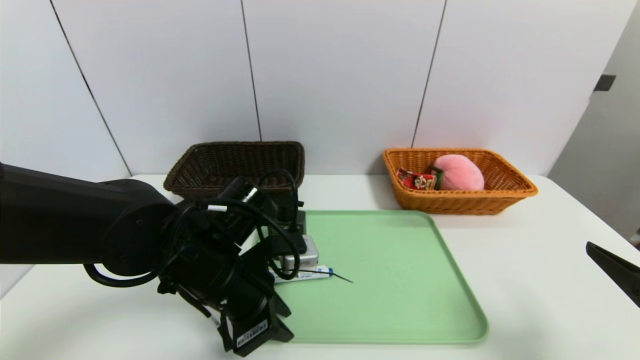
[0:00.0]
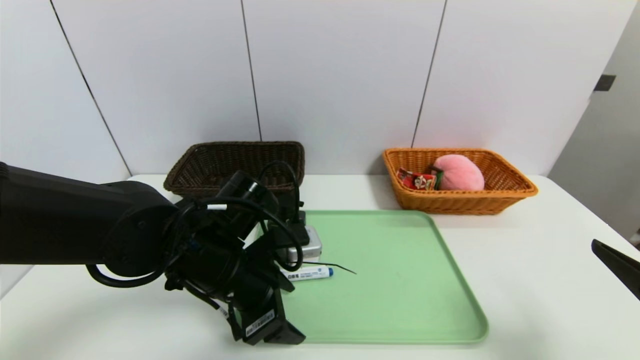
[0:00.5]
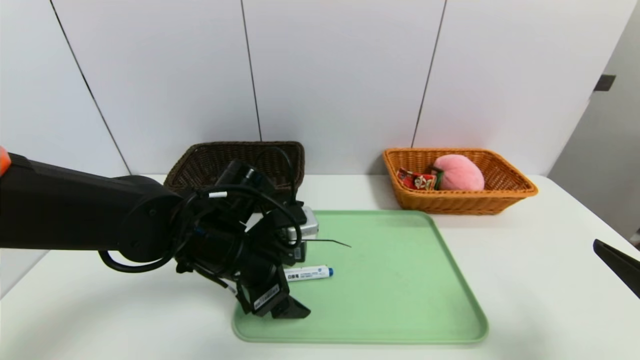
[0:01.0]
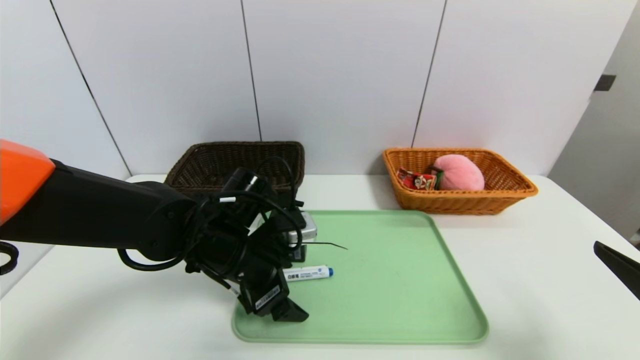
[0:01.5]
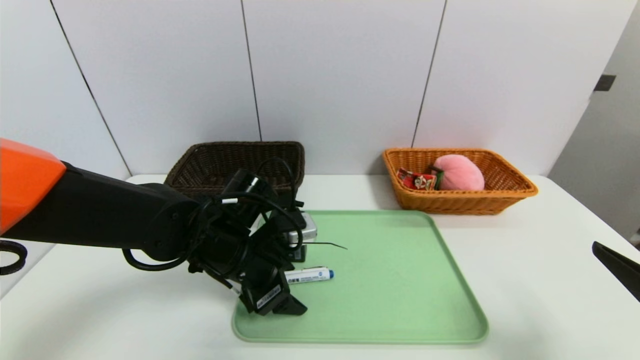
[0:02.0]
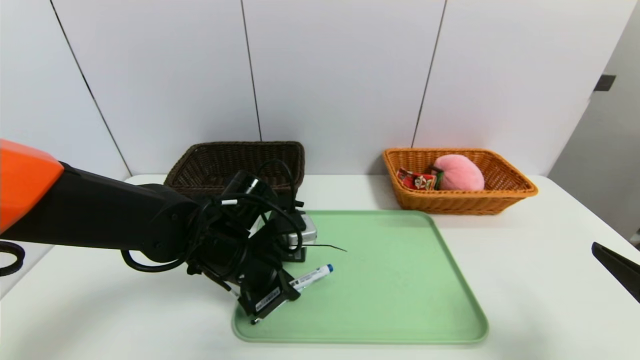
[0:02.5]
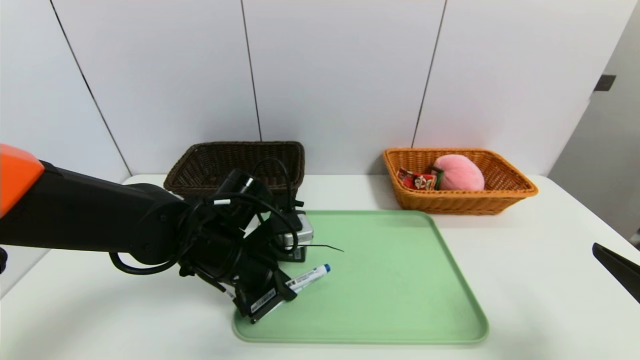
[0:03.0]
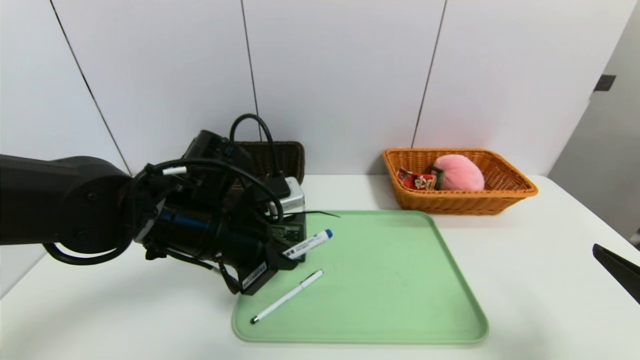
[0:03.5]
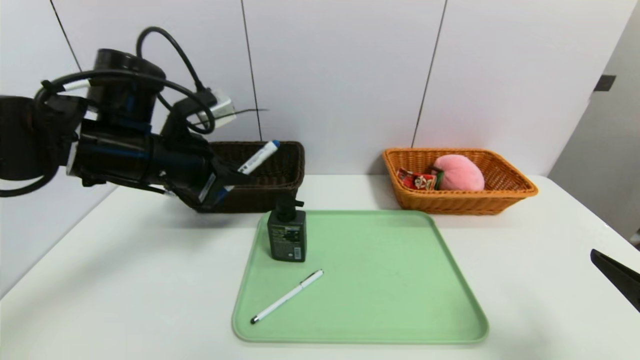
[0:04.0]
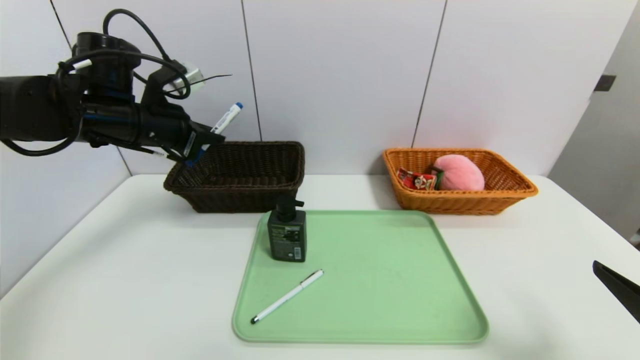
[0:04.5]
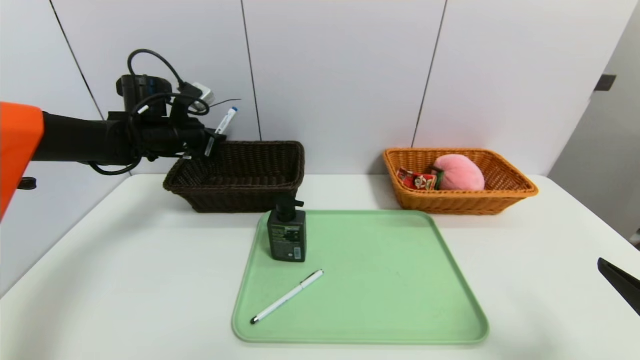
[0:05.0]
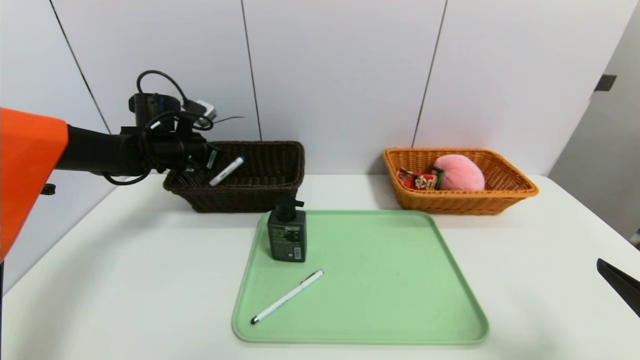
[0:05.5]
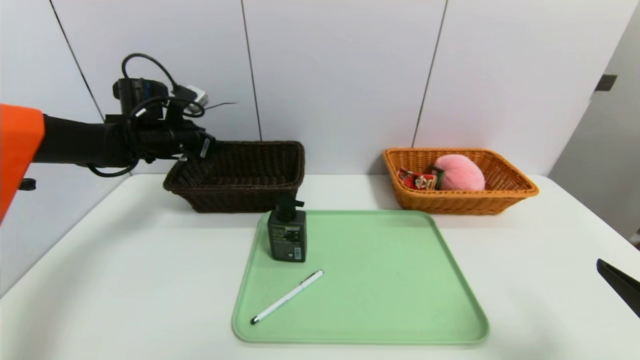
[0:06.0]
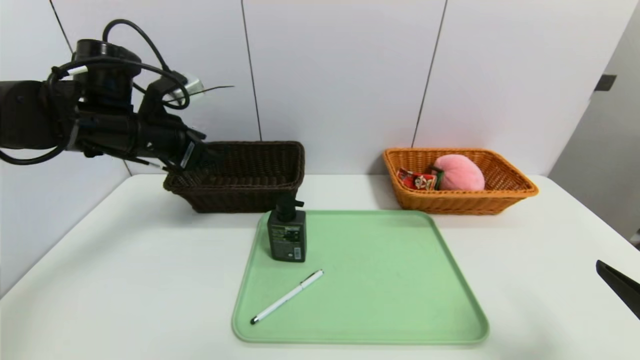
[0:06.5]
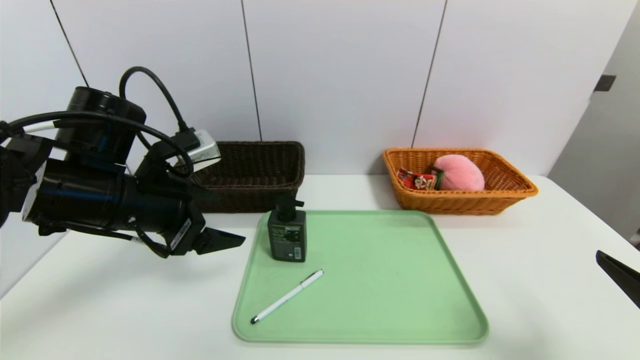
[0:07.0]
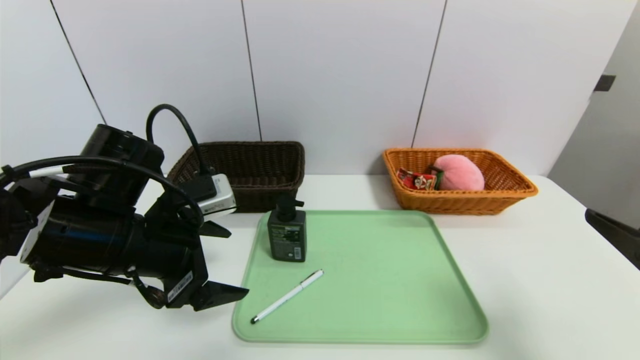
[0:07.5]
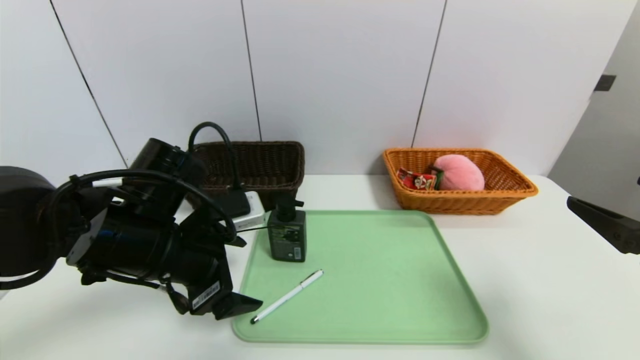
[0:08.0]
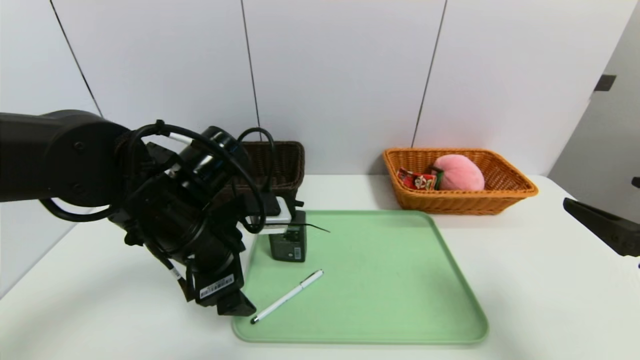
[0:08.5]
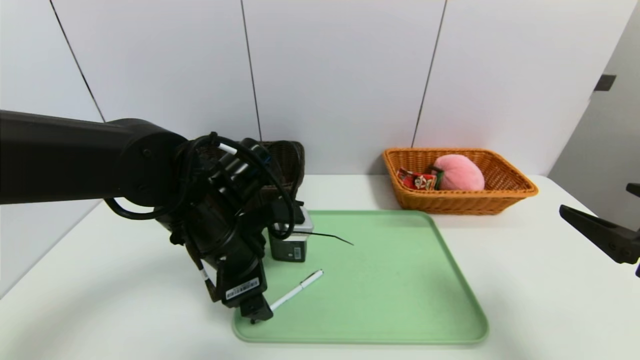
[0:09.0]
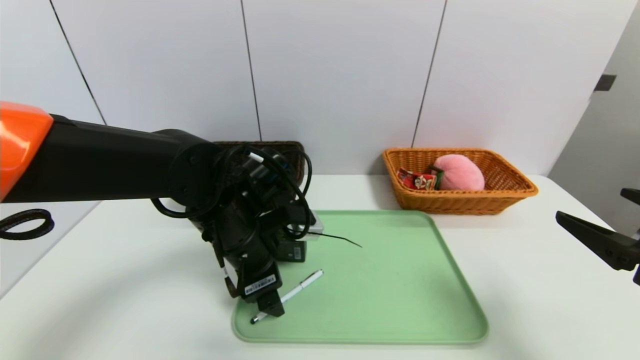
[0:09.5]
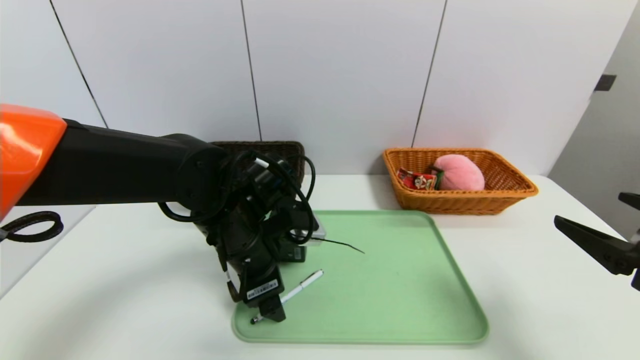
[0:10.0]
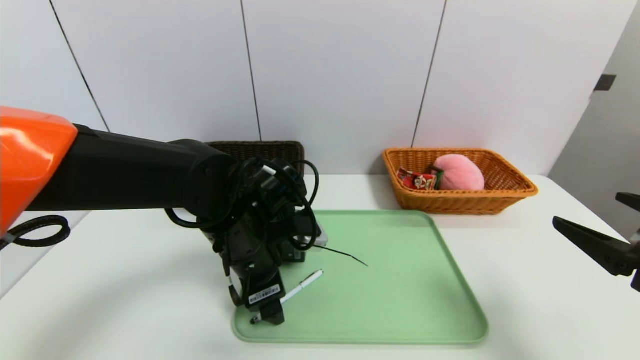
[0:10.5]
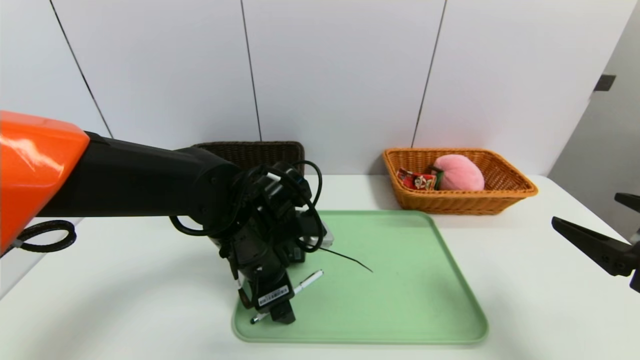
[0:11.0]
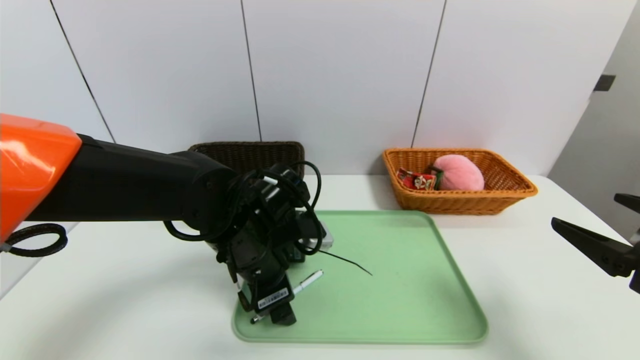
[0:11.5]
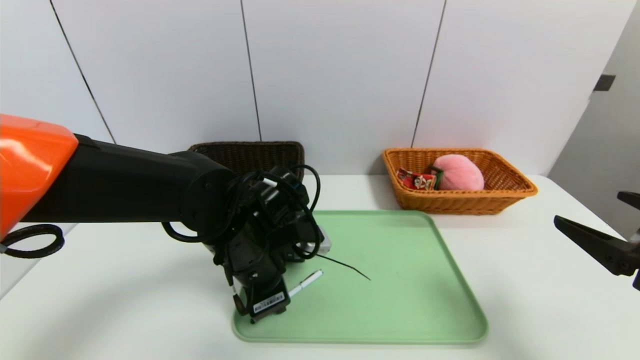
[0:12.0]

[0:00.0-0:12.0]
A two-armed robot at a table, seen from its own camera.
Task of the whole recording: place the food in the right basket with the right gripper, and place the non food items in the left basket with the left gripper.
Step, 0:00.0 to 0:06.0: Grasp the blue marker and put it in the left basket.
0:00.0 to 0:02.0: The left gripper opens.
0:02.0 to 0:04.0: The left gripper travels upward and to the left by about 15 cm, and closes up.
0:04.0 to 0:06.0: The left gripper moves forward and to the left, roughly 15 cm, and opens up.
0:06.0 to 0:08.0: The left gripper goes some 25 cm backward and to the right. The right gripper changes place by some 5 cm.
0:08.0 to 0:10.0: The left gripper heads to the right, covering some 5 cm.
0:10.0 to 0:12.0: The left gripper closes.

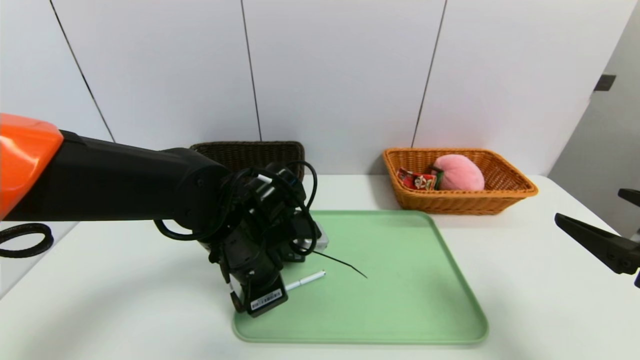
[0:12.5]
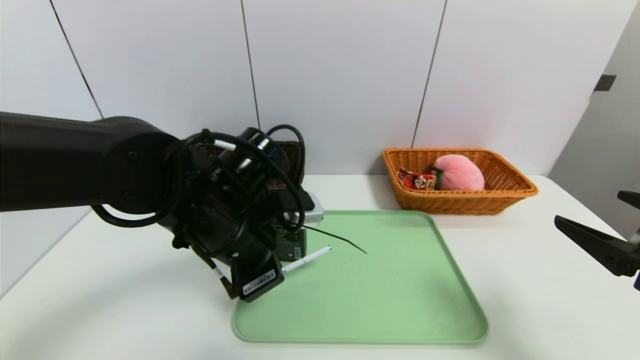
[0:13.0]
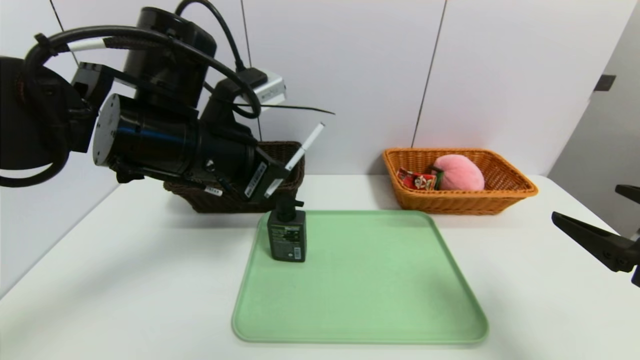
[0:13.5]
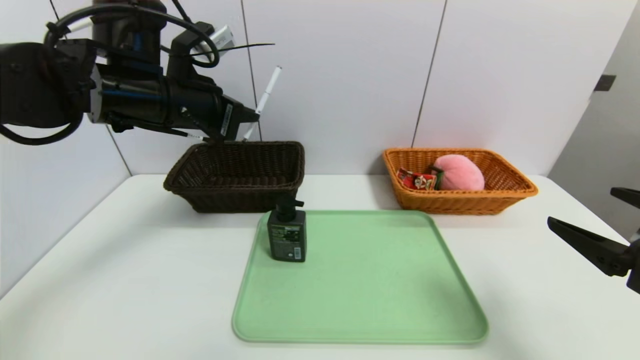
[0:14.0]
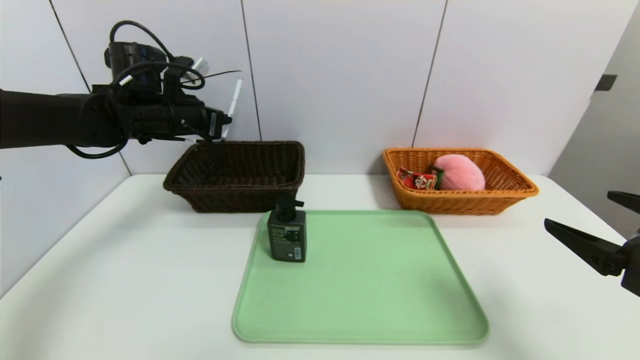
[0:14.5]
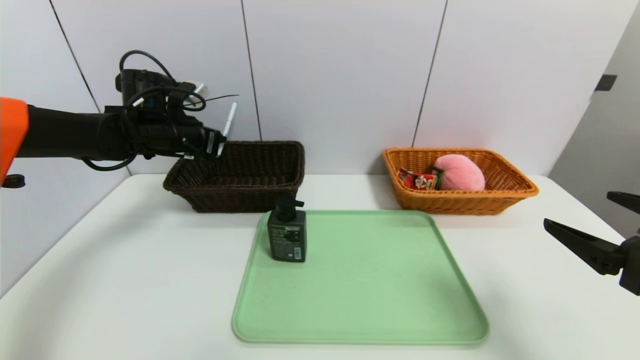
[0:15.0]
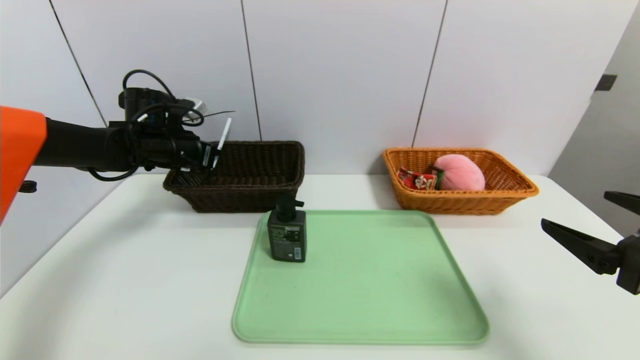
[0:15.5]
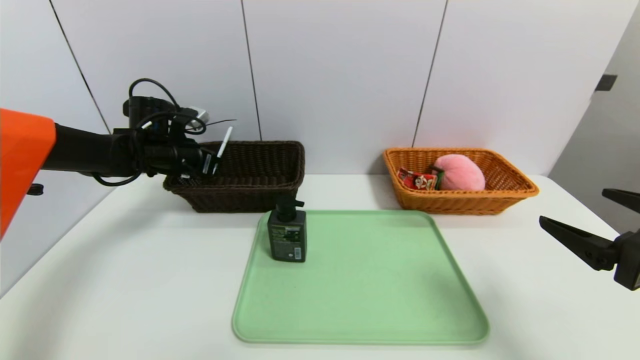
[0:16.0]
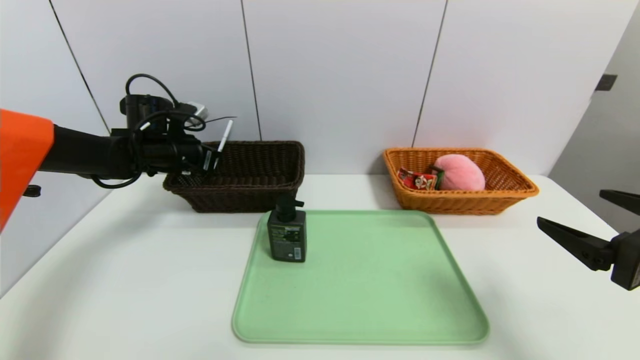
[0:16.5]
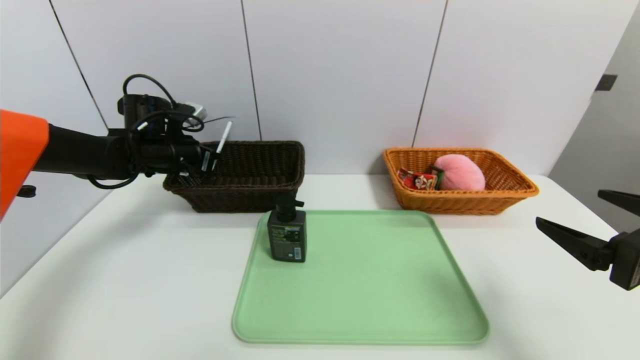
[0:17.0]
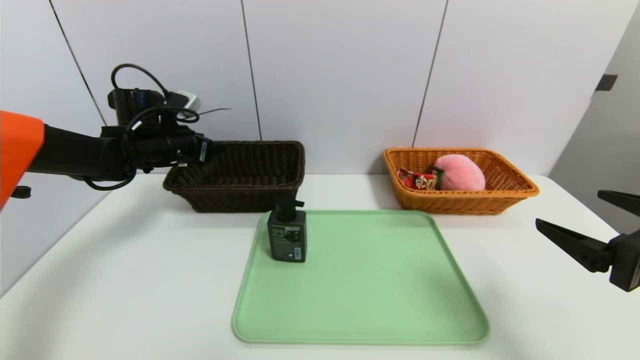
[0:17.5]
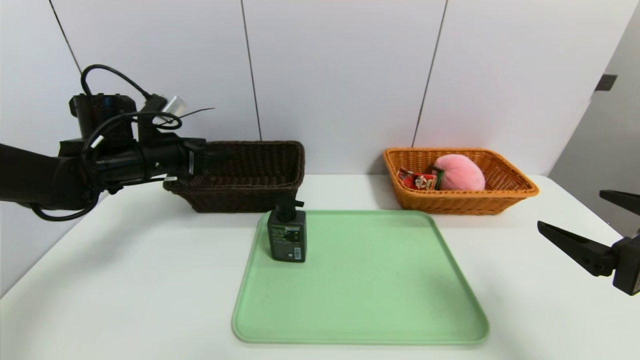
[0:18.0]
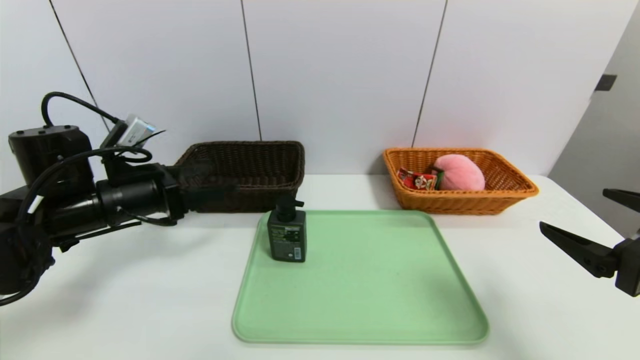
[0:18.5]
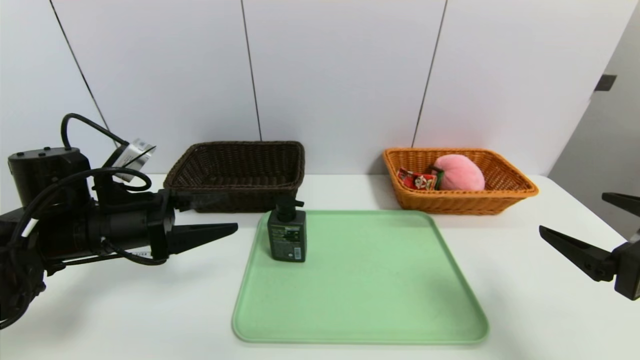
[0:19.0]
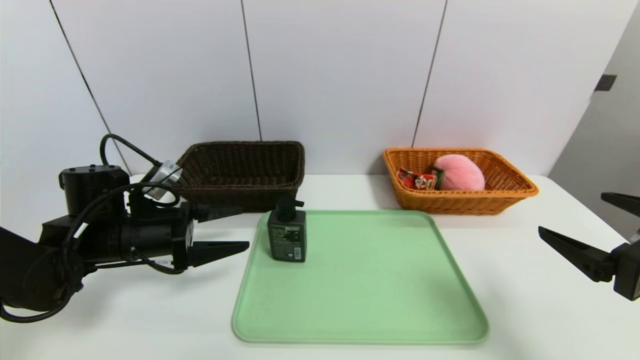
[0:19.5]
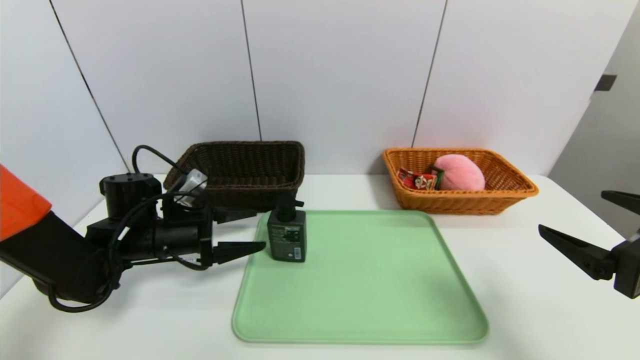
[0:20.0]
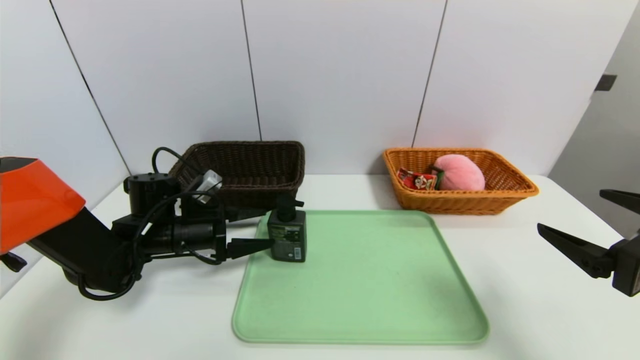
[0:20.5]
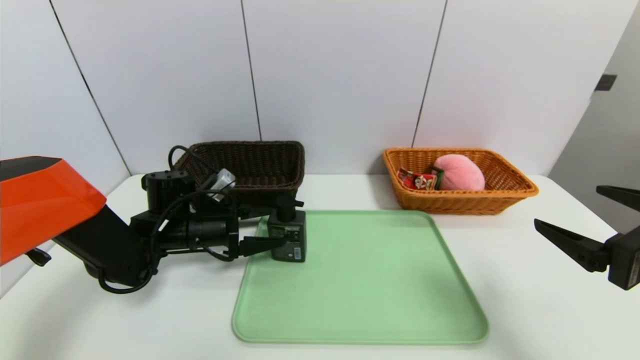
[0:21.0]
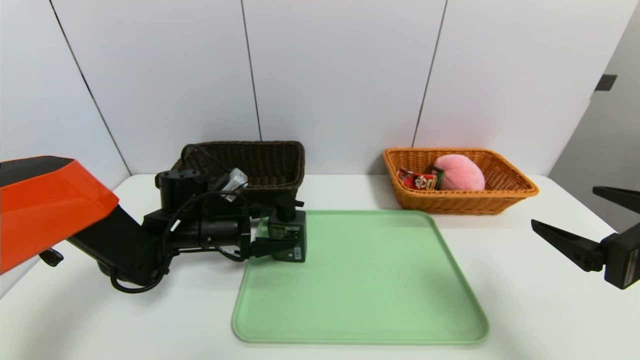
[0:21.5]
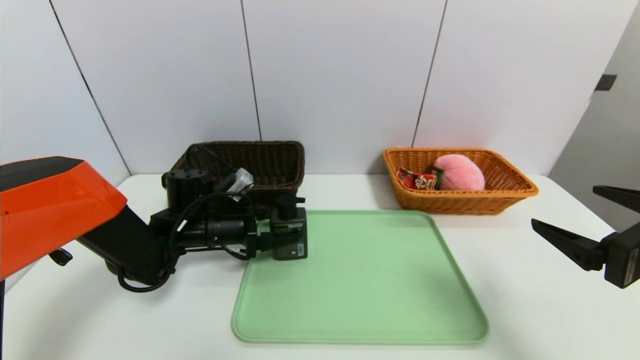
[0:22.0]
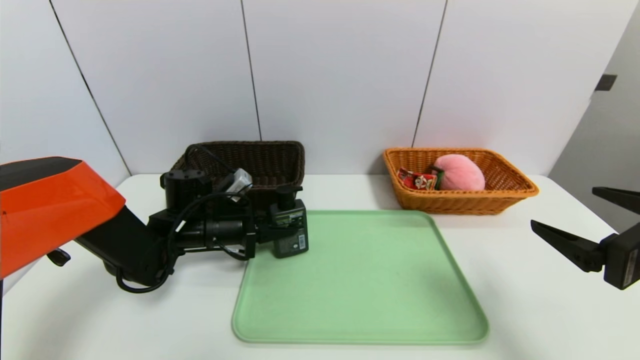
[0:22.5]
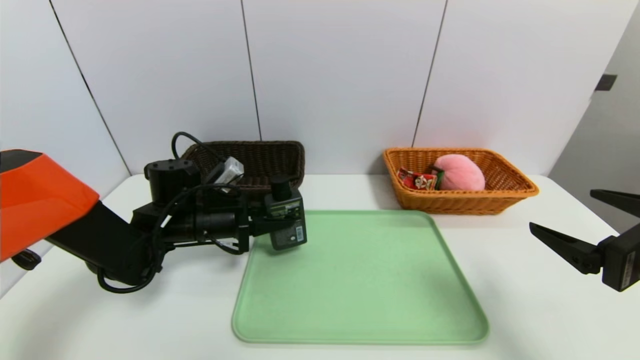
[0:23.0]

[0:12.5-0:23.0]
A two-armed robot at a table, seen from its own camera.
Task of the whole recording: place the food in the right basket with the right gripper, and place the non food items in the left basket with the left gripper.
Step, 0:12.5 to 0:17.5: Grasp the ballpoint pen and put it in the left basket.
0:12.5 to 0:14.5: The left gripper is displaced to the left, forward and upward by approximately 25 cm.
0:14.5 to 0:16.5: The left gripper travels downward by approximately 5 cm.
0:16.5 to 0:19.0: The left gripper travels backward by approximately 20 cm, and opens its fingers.
0:19.0 to 0:21.0: The left gripper goes roughly 10 cm forward and downward.
0:21.0 to 0:23.0: The left gripper closes up.
